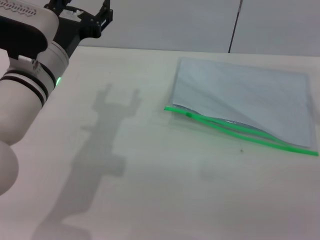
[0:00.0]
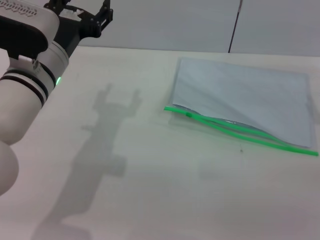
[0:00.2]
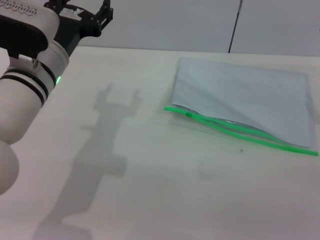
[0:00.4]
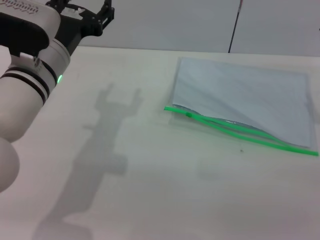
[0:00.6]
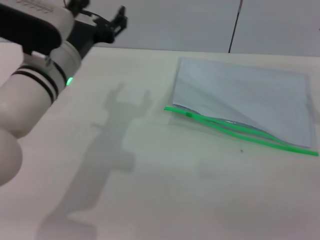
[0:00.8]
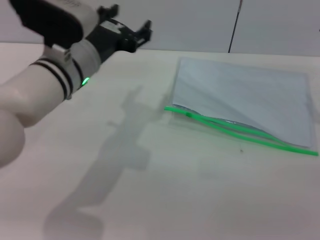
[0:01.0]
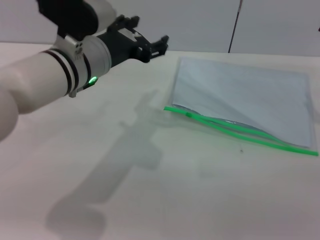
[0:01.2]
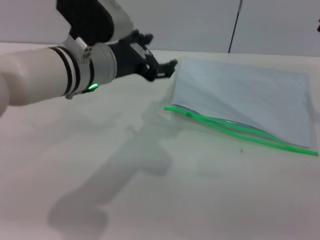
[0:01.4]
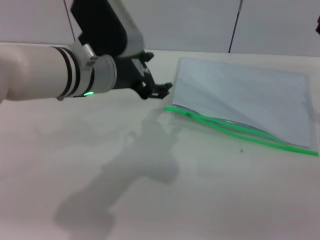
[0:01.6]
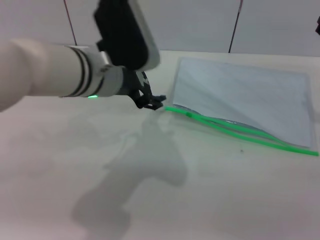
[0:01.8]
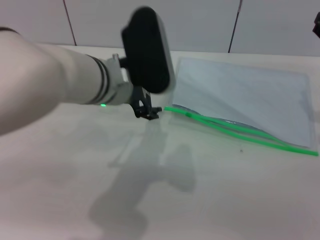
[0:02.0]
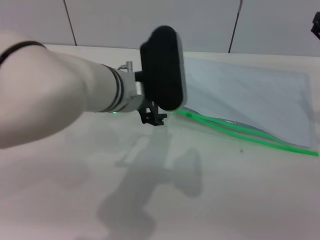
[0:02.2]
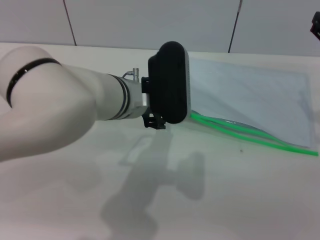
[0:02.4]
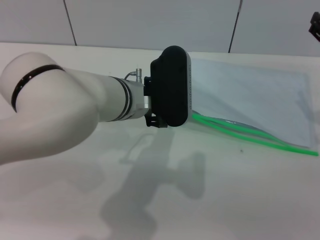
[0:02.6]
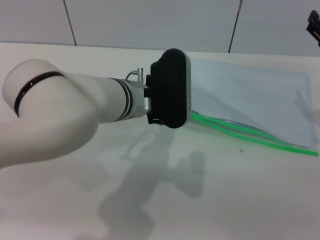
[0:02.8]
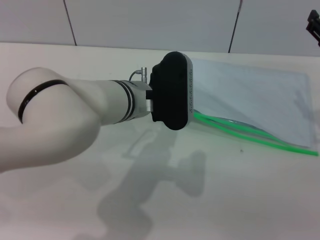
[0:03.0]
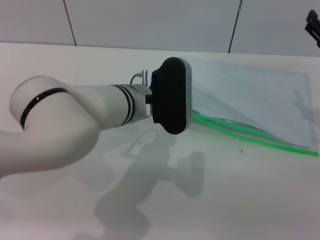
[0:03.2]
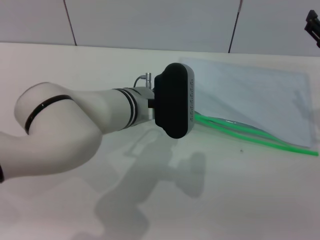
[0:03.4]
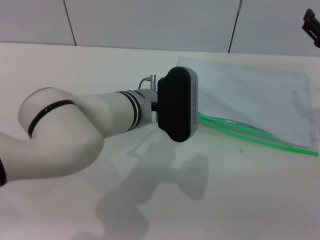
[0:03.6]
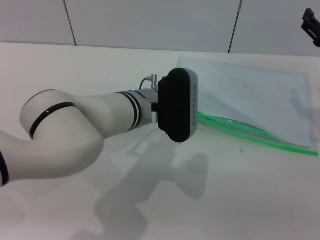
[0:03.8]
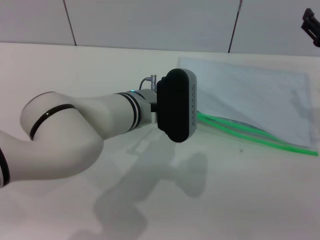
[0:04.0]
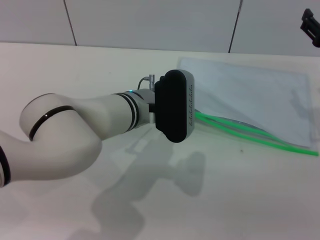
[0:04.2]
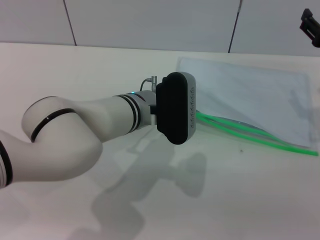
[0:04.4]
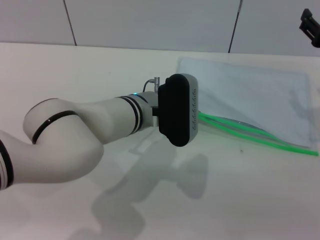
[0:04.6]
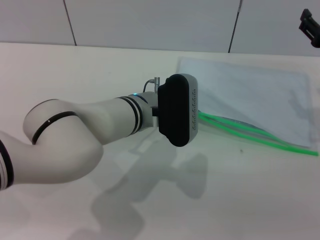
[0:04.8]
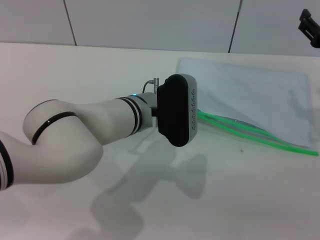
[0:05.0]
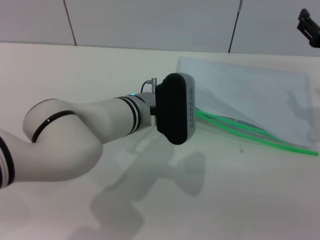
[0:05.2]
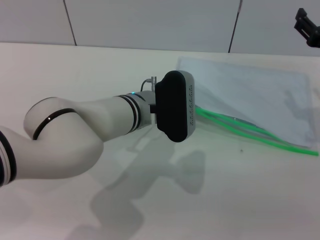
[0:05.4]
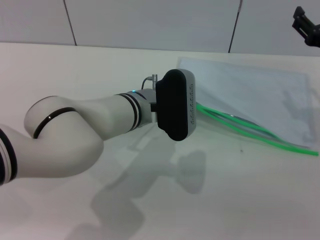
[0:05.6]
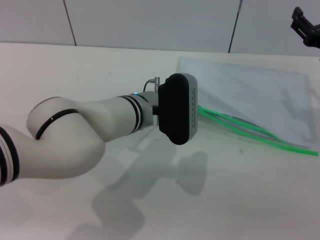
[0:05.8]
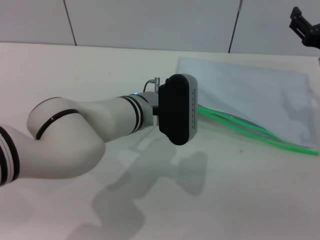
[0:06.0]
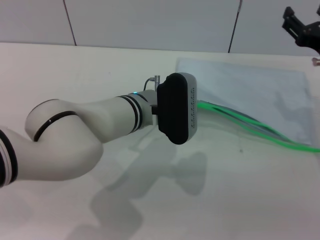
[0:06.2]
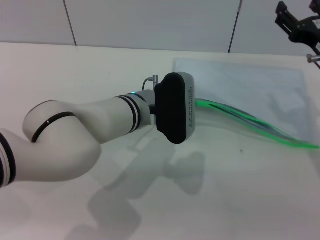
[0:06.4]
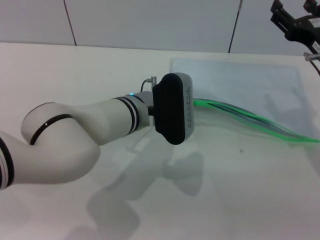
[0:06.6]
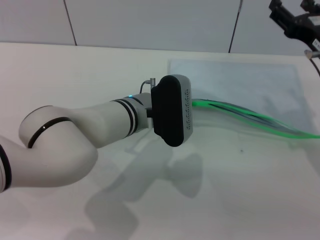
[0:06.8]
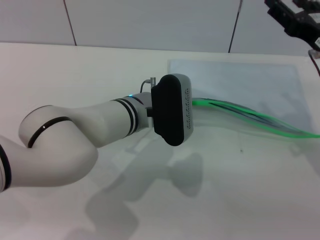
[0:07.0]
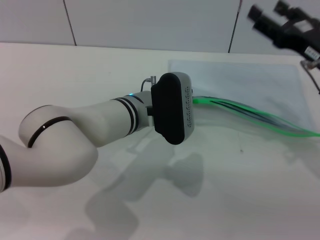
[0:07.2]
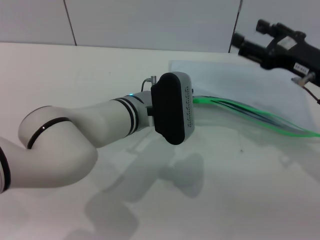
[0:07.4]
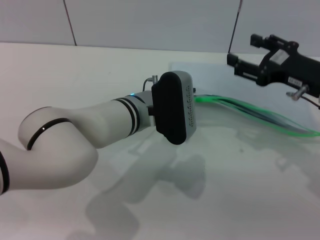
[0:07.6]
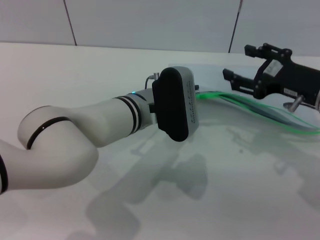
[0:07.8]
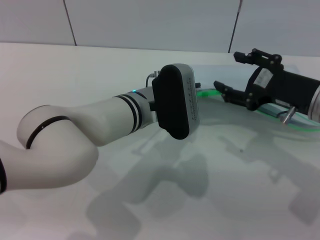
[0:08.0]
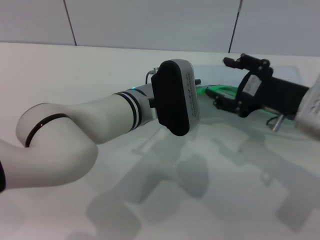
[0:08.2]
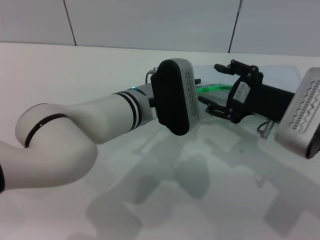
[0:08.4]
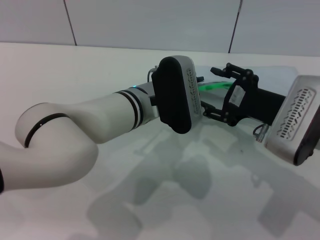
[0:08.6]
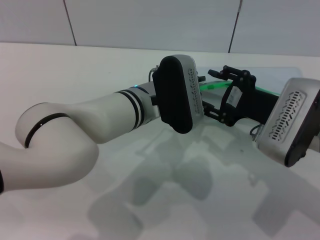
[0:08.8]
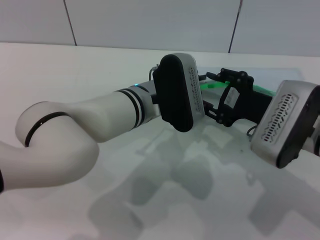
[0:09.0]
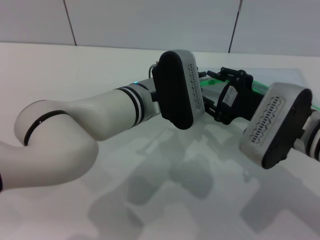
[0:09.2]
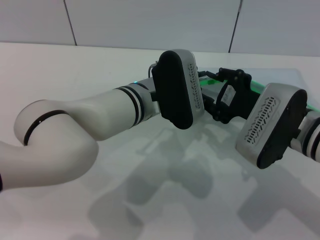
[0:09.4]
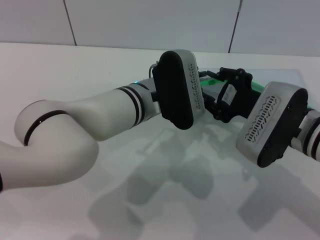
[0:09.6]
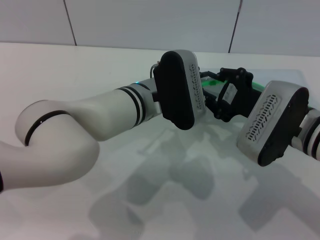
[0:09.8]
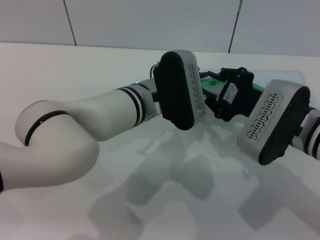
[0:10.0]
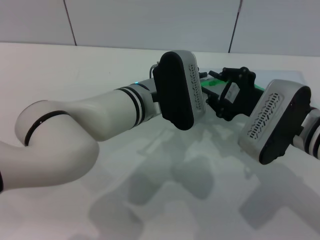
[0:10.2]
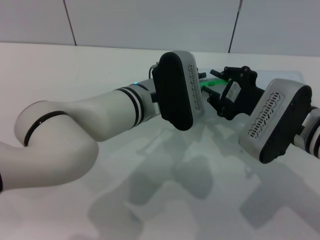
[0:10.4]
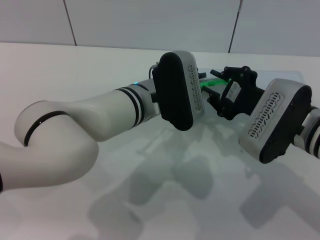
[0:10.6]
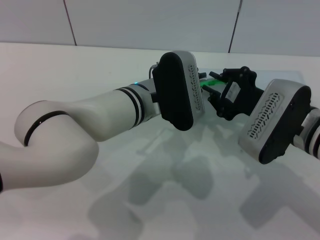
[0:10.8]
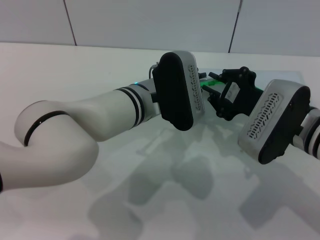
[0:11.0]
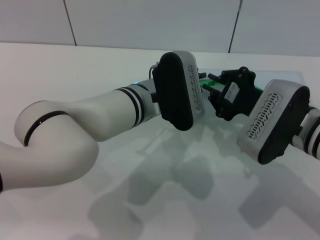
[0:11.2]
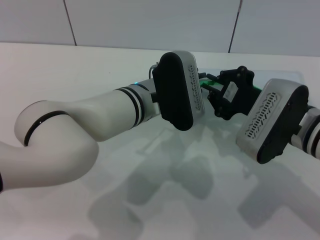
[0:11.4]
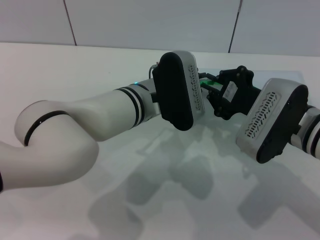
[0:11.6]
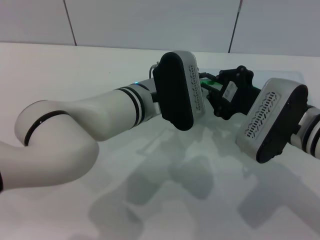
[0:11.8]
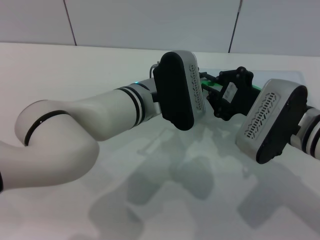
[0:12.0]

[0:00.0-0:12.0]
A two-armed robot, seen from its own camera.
Step, 0:00.0 to 0:07.6: Pick up the transparent plastic bag with the left gripper.
0:00.0 to 0:01.6: The left gripper heads to the right, covering some 5 cm.
0:01.6 to 0:03.0: The left gripper travels downward and to the right by about 10 cm.
0:03.0 to 0:04.4: There are only small adjustments of the grippers.
0:04.4 to 0:06.0: The left gripper closes its fingers.
0:07.6 to 0:09.0: The right gripper moves to the left, some 5 cm.
0:09.0 to 0:10.4: The right gripper closes its fingers.
0:10.4 to 0:12.0: Neither gripper changes place.

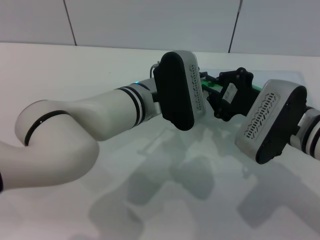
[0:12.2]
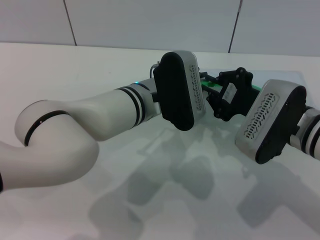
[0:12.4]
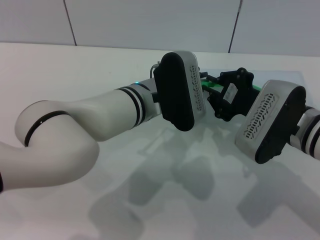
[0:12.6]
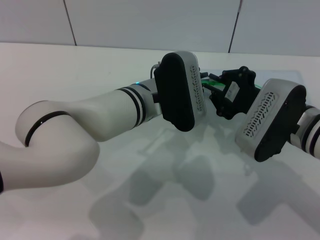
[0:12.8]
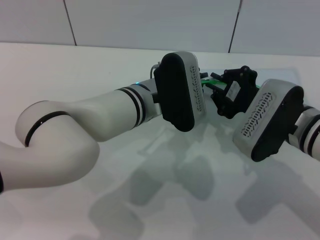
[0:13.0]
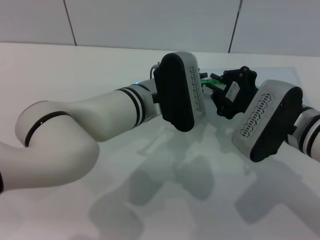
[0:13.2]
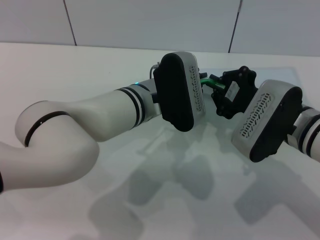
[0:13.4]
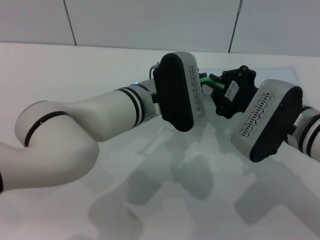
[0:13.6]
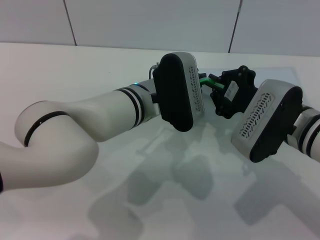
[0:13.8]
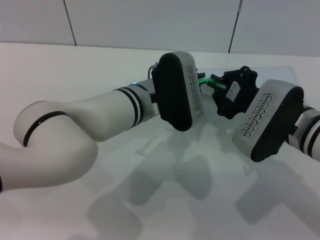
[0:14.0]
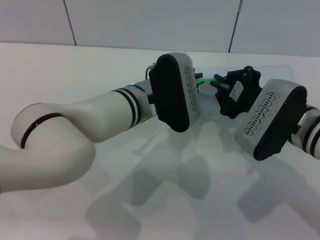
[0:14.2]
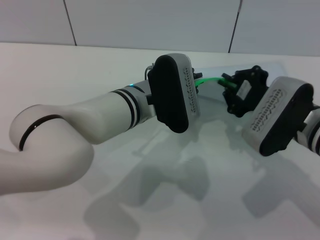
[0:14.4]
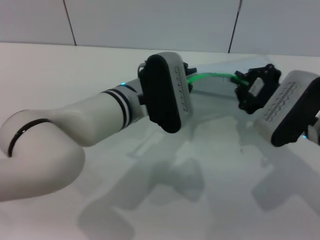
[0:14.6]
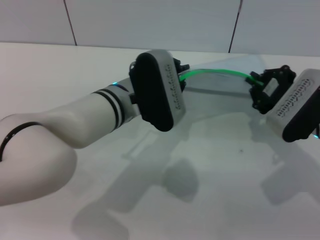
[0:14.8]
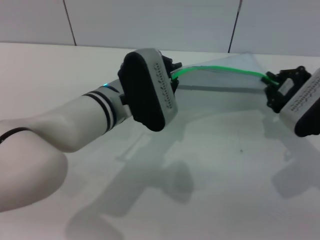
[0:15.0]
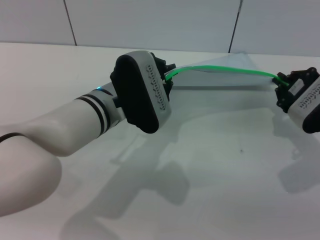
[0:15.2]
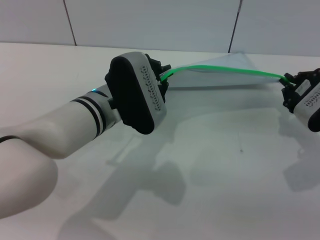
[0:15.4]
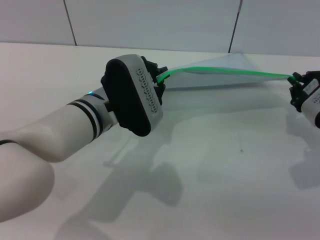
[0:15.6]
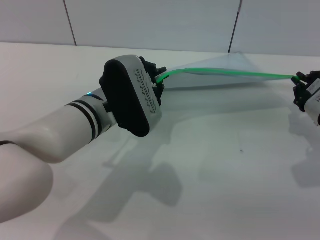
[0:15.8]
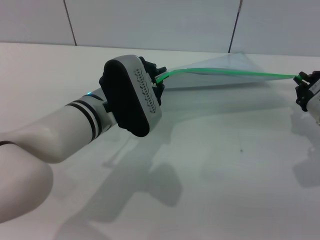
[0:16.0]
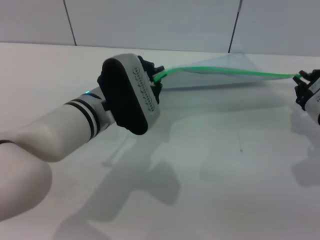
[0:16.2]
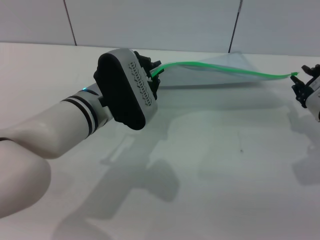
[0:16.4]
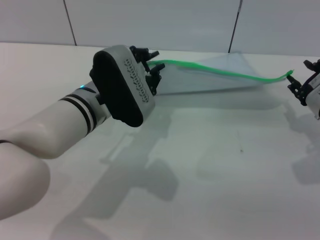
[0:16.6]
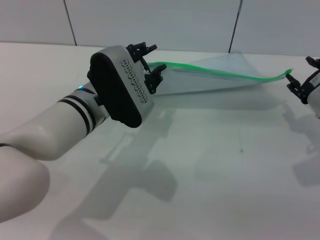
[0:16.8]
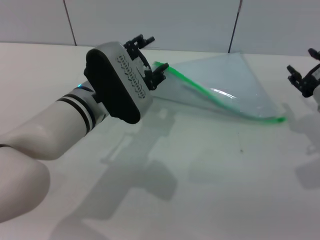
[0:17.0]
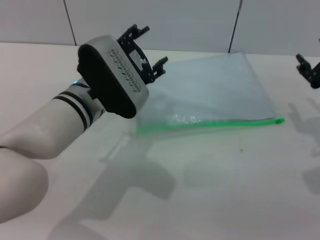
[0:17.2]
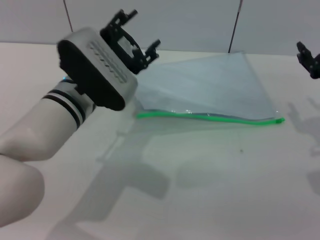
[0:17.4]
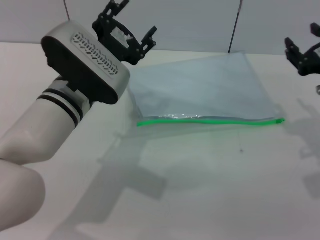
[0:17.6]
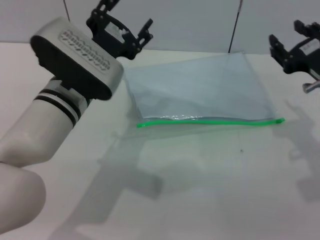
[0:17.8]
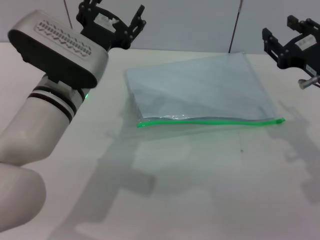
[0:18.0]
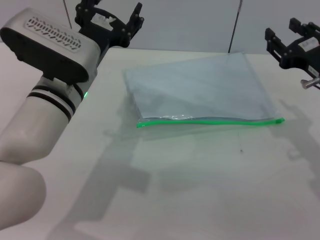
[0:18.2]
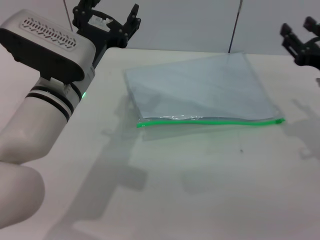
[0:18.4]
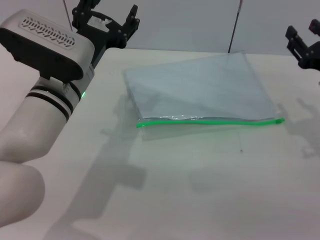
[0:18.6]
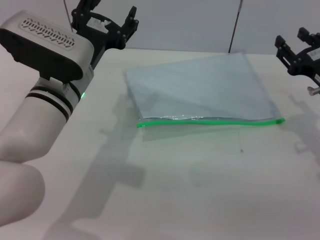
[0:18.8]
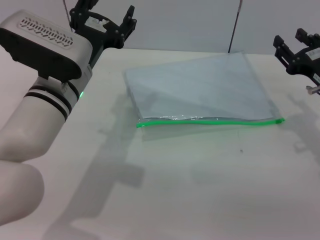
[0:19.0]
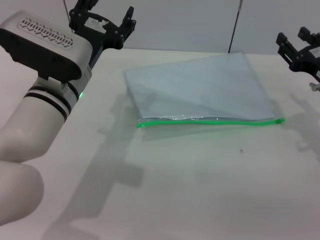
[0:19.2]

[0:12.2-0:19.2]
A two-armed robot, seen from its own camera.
Step, 0:12.2 to 0:16.2: Pulling up the zipper on the transparent plastic bag with the right gripper to close it.
Step, 0:16.4 to 0:17.4: Place the transparent plastic bag.
0:12.2 to 0:13.6: The two grippers keep their place.
0:13.6 to 0:15.0: The right gripper goes approximately 5 cm to the right.
0:15.0 to 0:16.4: The grippers make only small movements.
0:16.4 to 0:17.8: The left gripper opens; the right gripper shifts approximately 5 cm upward, and opens.
0:17.8 to 0:19.2: The right gripper changes place by roughly 5 cm.
